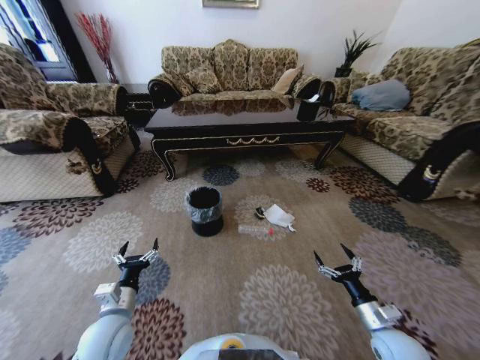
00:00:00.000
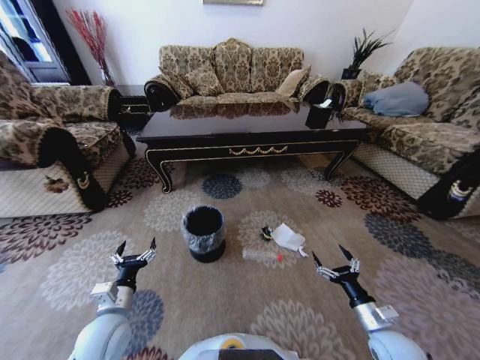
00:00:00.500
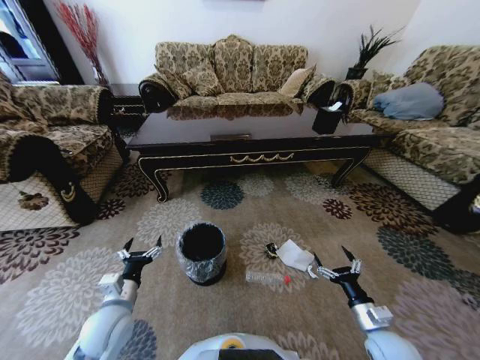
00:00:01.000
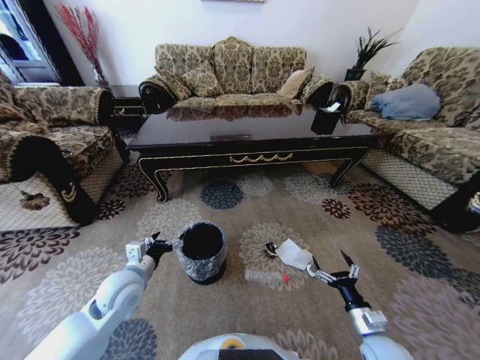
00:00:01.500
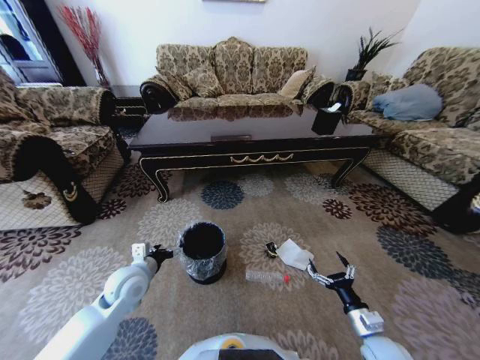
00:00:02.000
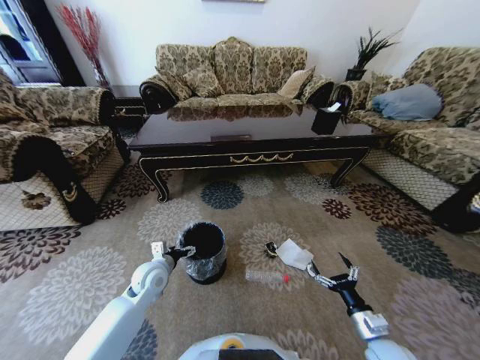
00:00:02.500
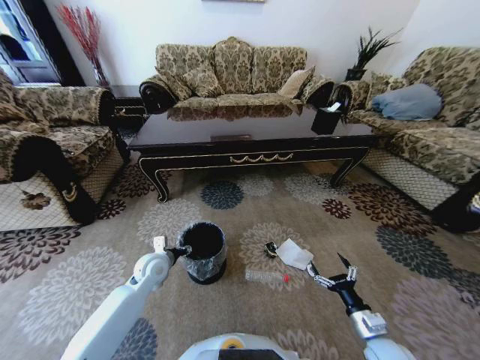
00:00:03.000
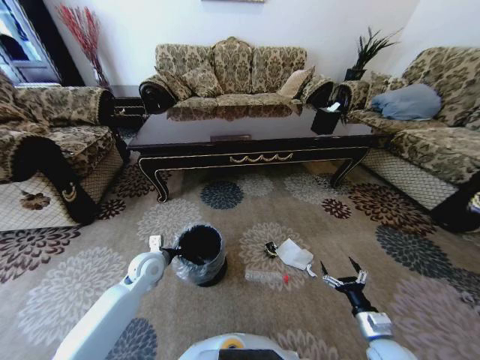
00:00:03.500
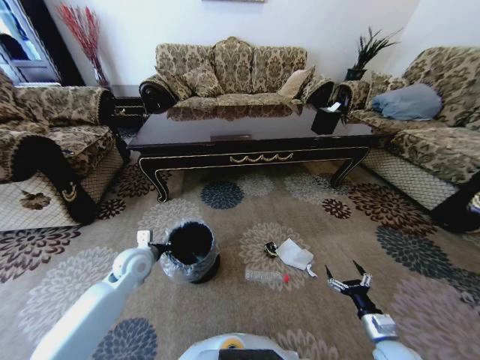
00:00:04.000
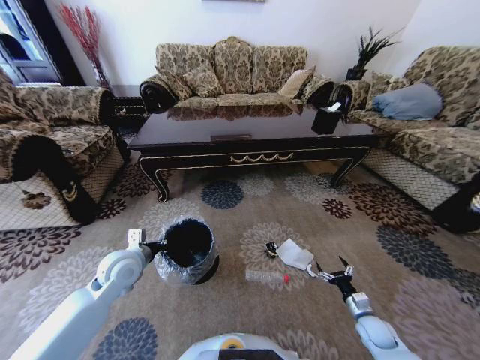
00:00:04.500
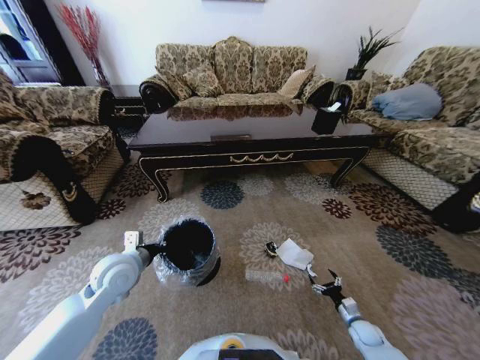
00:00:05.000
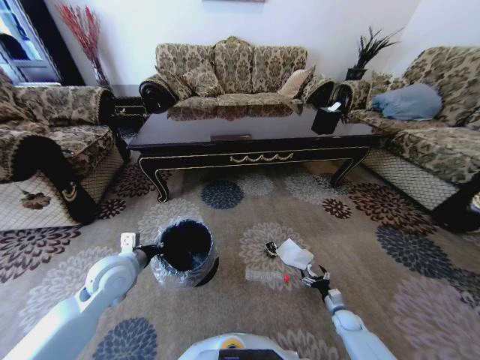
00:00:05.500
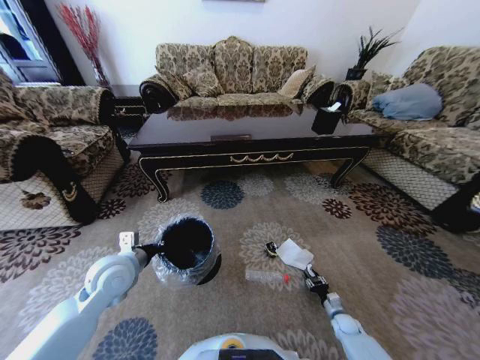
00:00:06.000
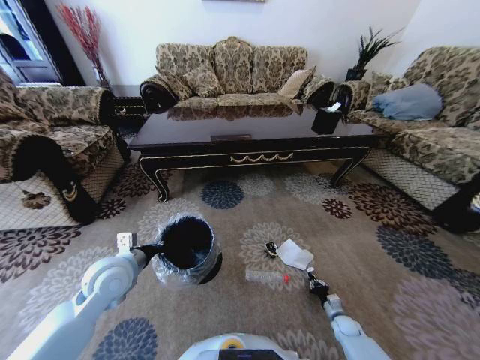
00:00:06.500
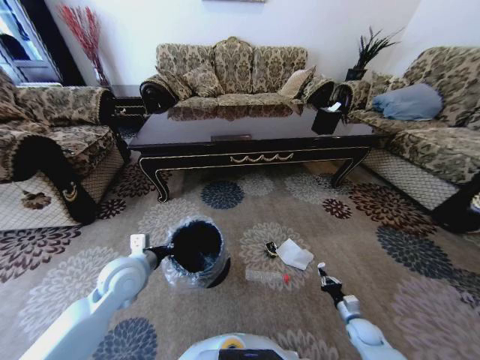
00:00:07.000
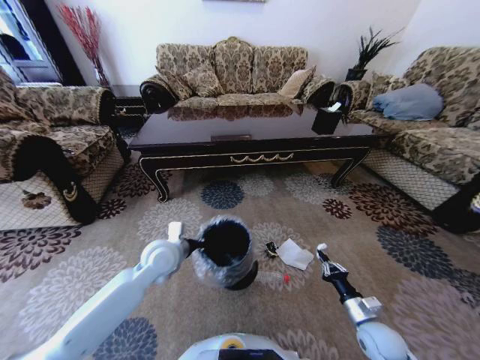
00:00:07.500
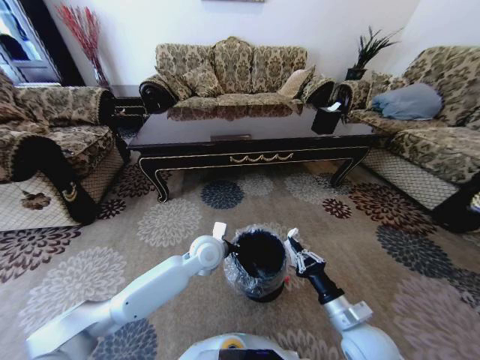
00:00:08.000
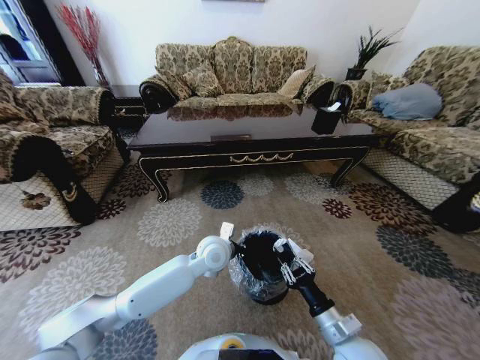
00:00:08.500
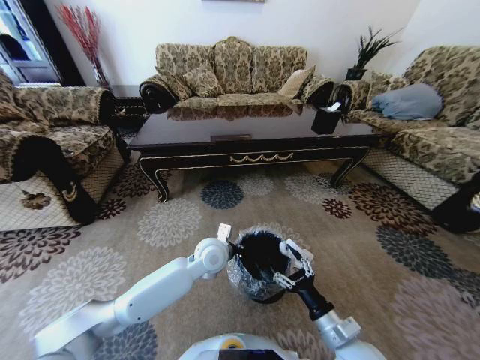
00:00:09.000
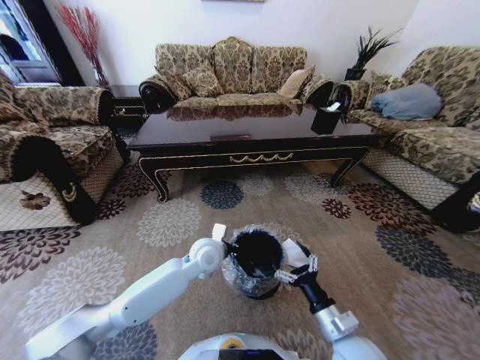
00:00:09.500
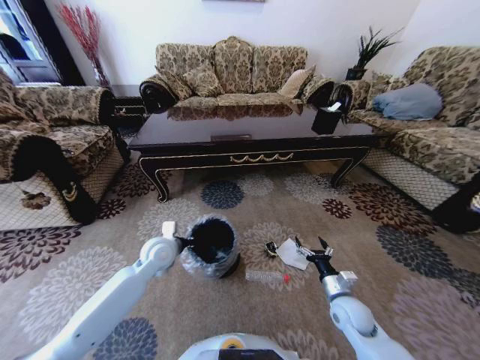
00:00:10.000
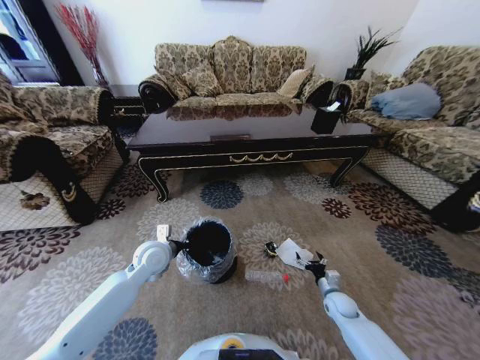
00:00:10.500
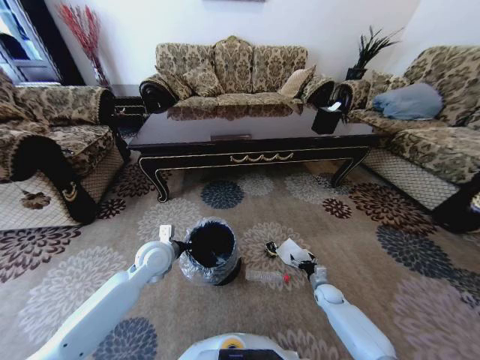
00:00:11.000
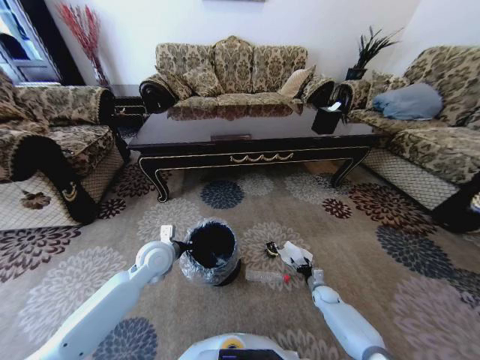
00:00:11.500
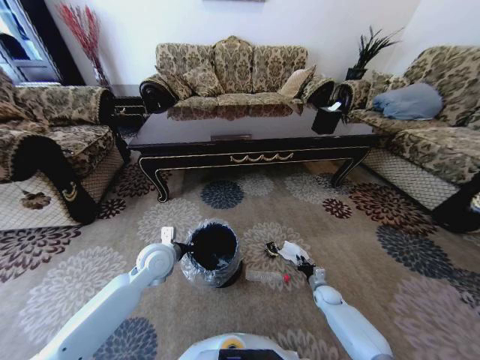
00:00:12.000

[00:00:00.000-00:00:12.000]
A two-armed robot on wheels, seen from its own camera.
Task of the whole recording: Move to the front of the table and pick up the trash from the floor, then place it into the trash bin.
00:00:00.000 to 00:00:02.000: The left gripper travels forward by roughly 10 cm.
00:00:02.000 to 00:00:04.000: The left gripper goes some 5 cm forward, and closes; the right gripper shifts by approximately 5 cm.
00:00:04.000 to 00:00:06.000: The left gripper is displaced upward and backward by some 10 cm. Meanwhile the right gripper travels downward and forward by some 20 cm, and closes.
00:00:06.000 to 00:00:08.000: The left gripper travels to the right by approximately 20 cm; the right gripper is displaced upward and to the left by approximately 35 cm, and closes up.
00:00:08.000 to 00:00:10.000: The left gripper moves to the left, some 15 cm. Meanwhile the right gripper travels forward and downward by some 10 cm, and opens up.
00:00:10.000 to 00:00:12.000: The right gripper travels downward and forward by some 20 cm, and closes its fingers.

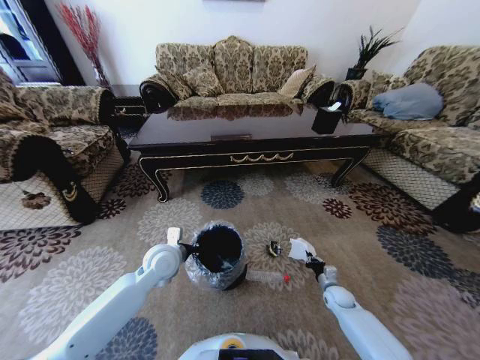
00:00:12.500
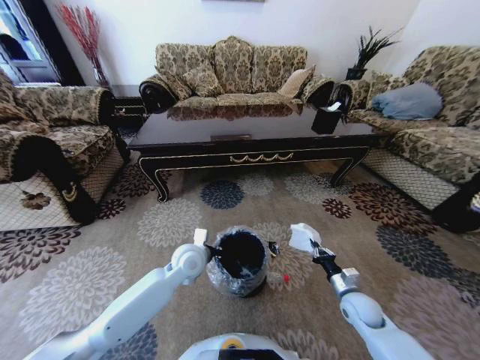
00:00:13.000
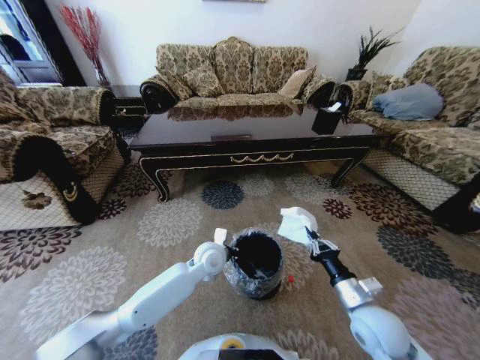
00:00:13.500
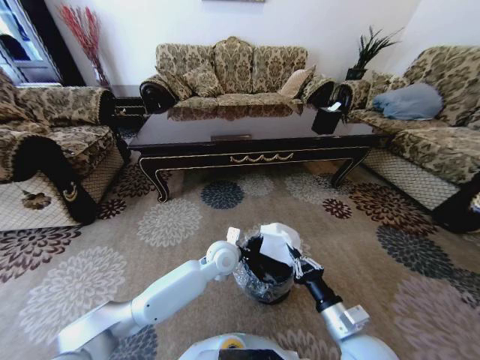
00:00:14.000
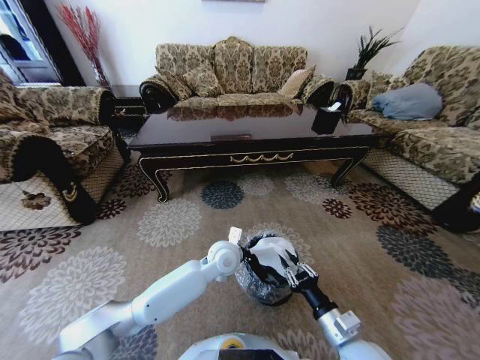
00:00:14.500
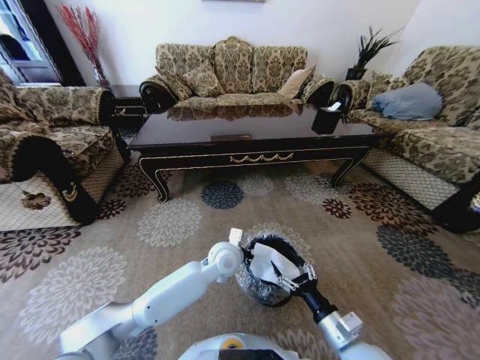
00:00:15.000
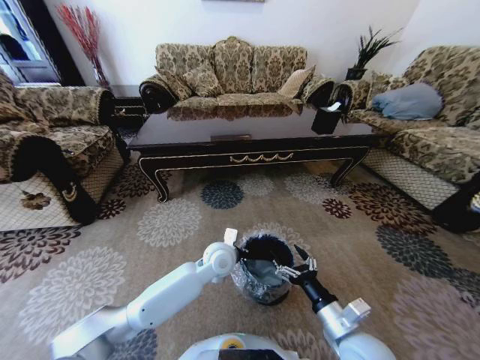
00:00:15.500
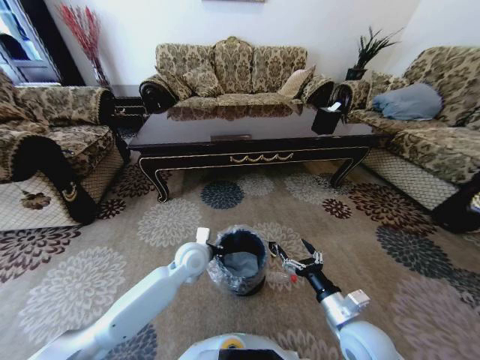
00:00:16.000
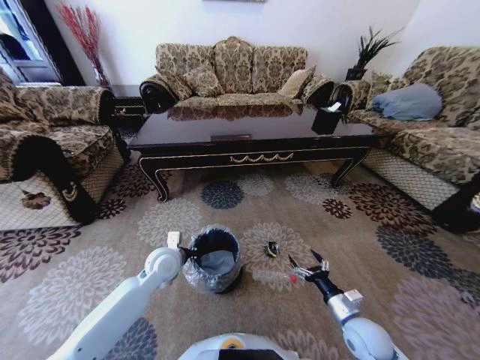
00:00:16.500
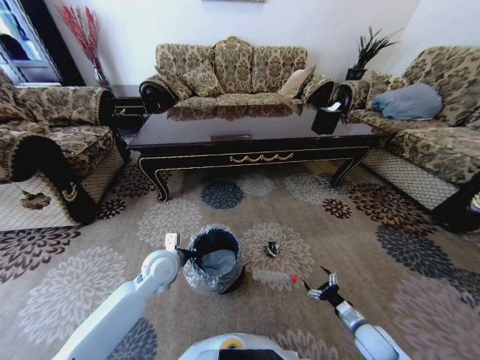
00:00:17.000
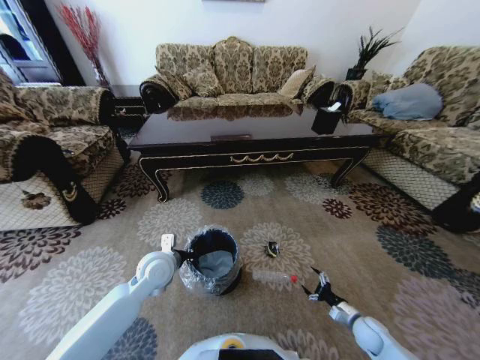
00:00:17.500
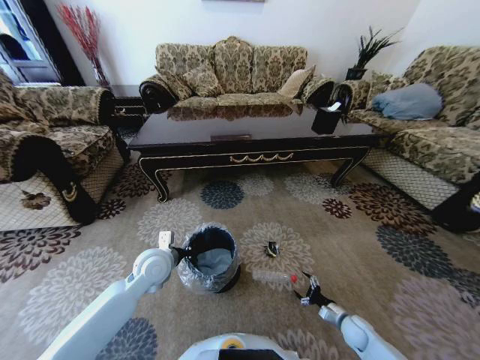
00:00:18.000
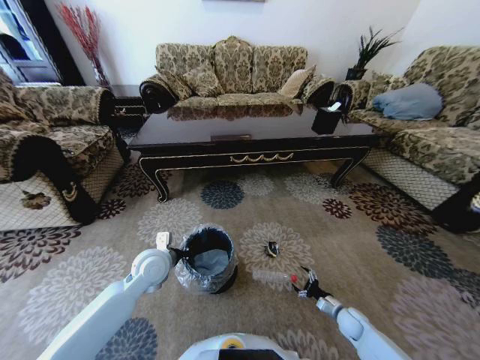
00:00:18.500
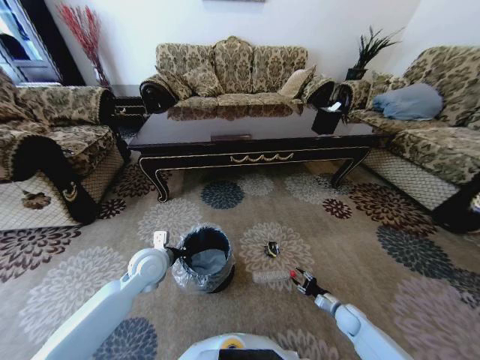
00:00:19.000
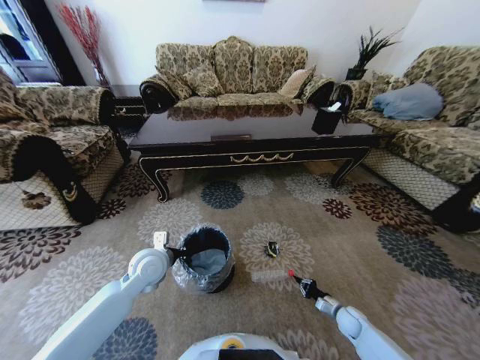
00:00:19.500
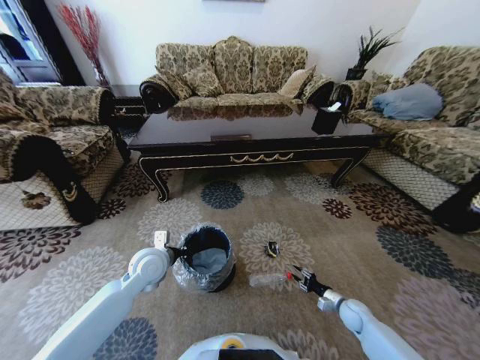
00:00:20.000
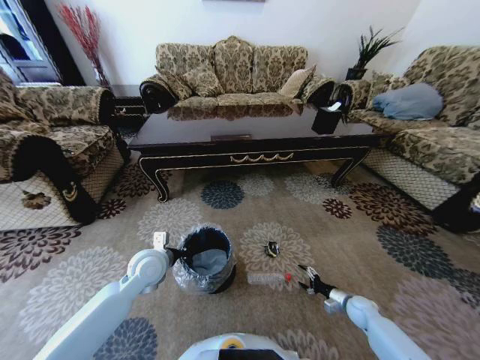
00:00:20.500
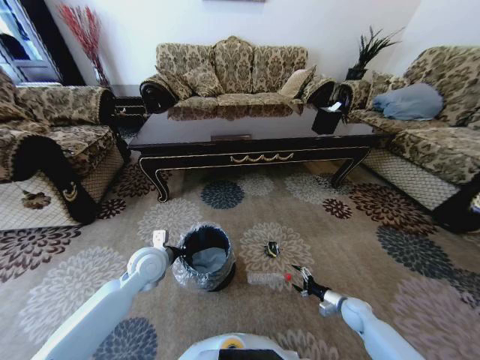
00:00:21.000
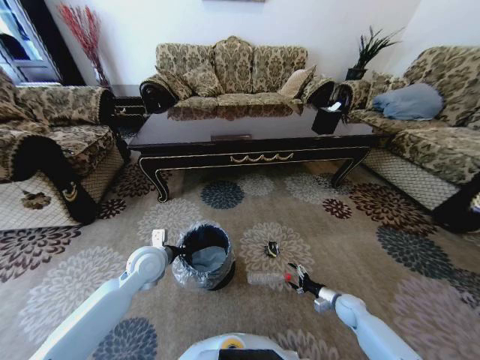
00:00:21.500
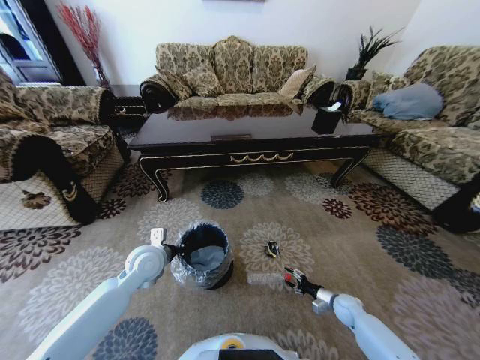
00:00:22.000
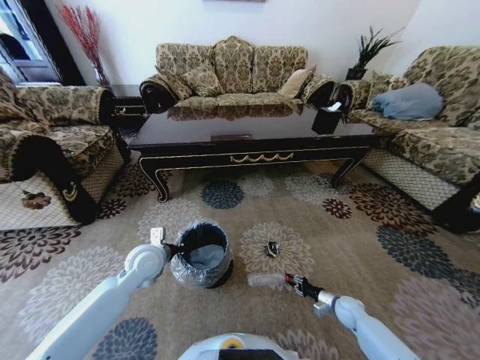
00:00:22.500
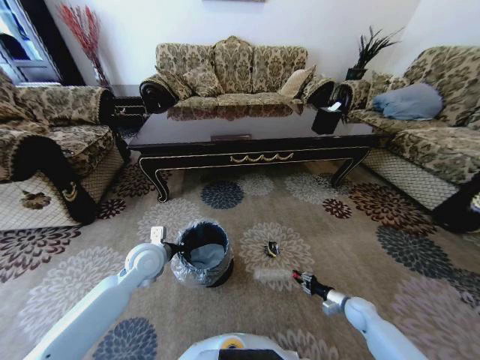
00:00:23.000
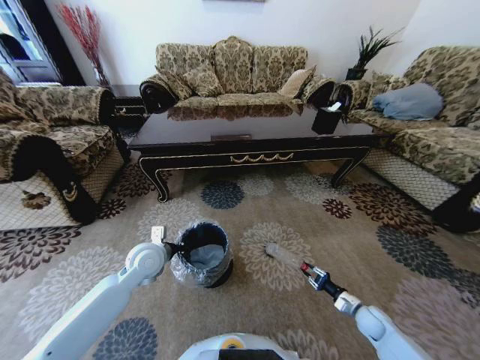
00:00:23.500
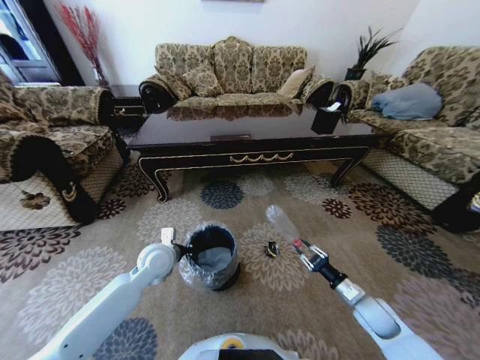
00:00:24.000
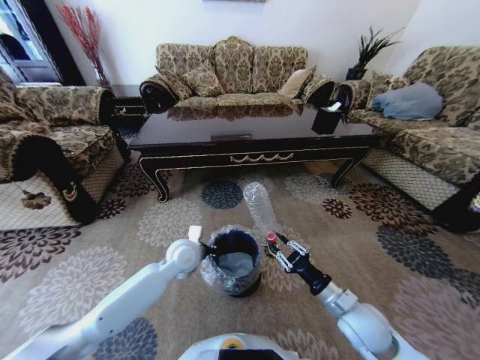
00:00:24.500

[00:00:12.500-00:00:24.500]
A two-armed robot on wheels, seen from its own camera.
Task of the whole recording: Move to the front of the table and pick up the trash from the floor, then place it into the trash bin.
00:00:12.500 to 00:00:14.500: The left gripper is displaced to the right by roughly 20 cm; the right gripper heads upward, backward and to the left, covering roughly 30 cm.
00:00:14.500 to 00:00:16.500: The right gripper heads to the right, downward and forward, covering roughly 10 cm, and opens; the left gripper moves to the left, roughly 20 cm.
00:00:16.500 to 00:00:18.500: The right gripper moves downward and to the right, roughly 20 cm.
00:00:18.500 to 00:00:20.500: The right gripper ends up about 5 cm from where it was, and closes, then reopens.
00:00:20.500 to 00:00:22.500: The right gripper closes.
00:00:22.500 to 00:00:24.500: The right gripper moves upward and to the left, about 25 cm, while the left gripper shifts about 10 cm to the right.

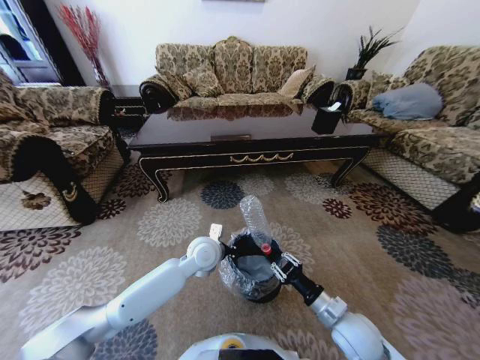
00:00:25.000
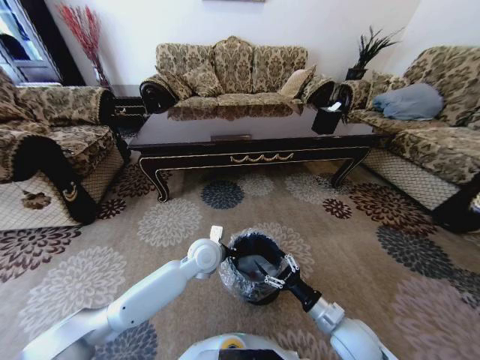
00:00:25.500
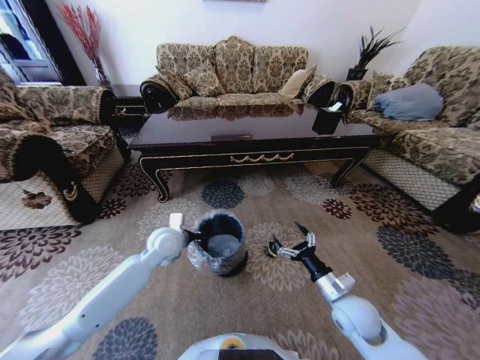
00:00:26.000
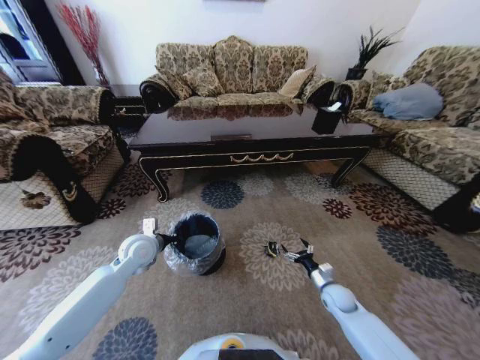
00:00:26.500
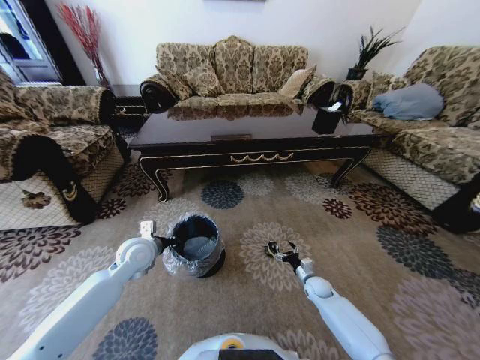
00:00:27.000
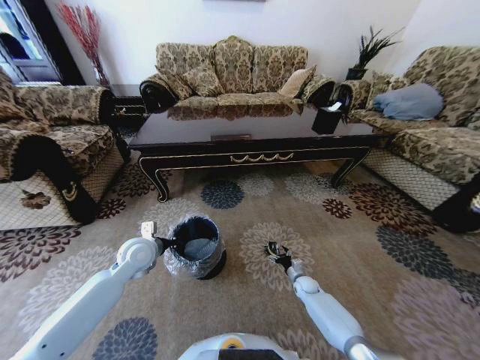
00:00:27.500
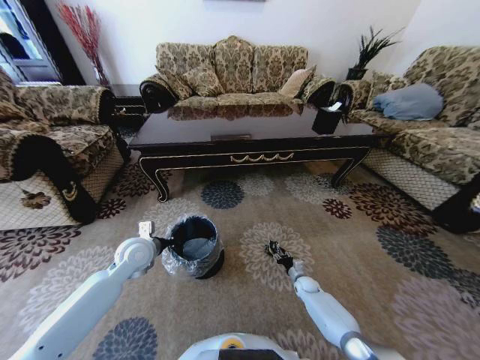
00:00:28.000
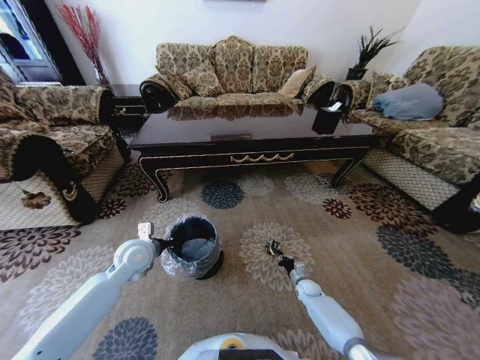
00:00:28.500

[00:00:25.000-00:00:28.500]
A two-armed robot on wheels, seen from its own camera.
Task of the whole recording: Move to the front of the table and pick up the trash from the floor, then place it into the trash bin.
00:00:25.000 to 00:00:27.000: The left gripper is displaced to the left by approximately 20 cm. Meanwhile the right gripper goes about 25 cm downward and forward, and opens up.
00:00:27.000 to 00:00:28.500: The right gripper heads downward, covering about 5 cm, and closes its fingers.
